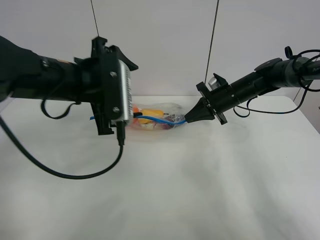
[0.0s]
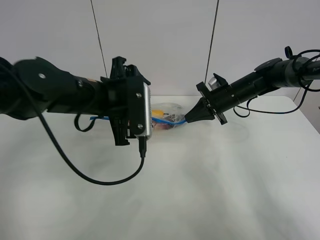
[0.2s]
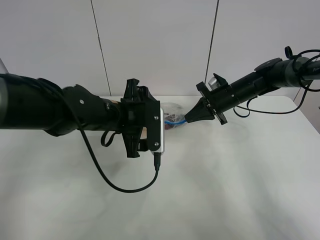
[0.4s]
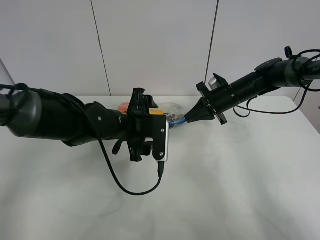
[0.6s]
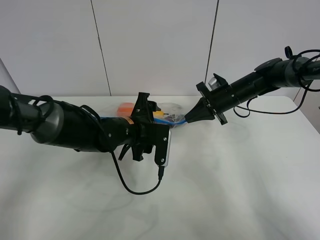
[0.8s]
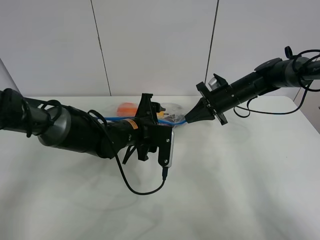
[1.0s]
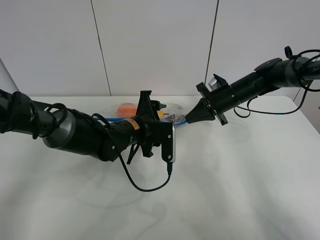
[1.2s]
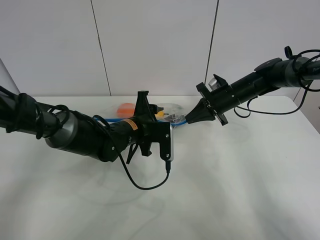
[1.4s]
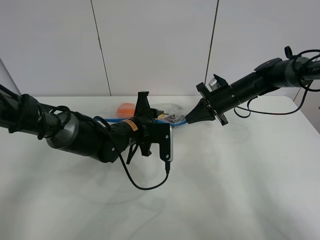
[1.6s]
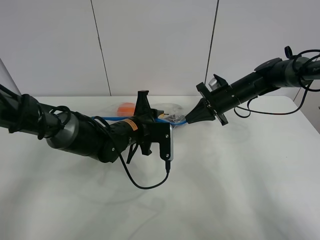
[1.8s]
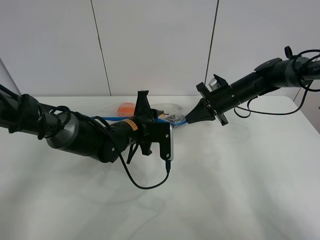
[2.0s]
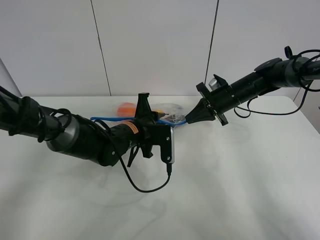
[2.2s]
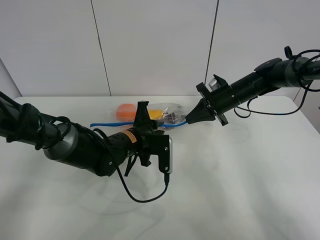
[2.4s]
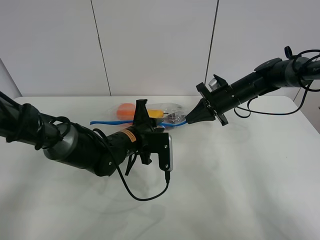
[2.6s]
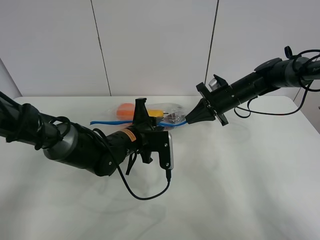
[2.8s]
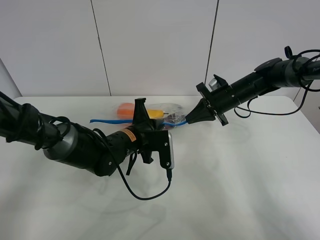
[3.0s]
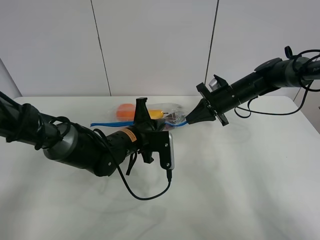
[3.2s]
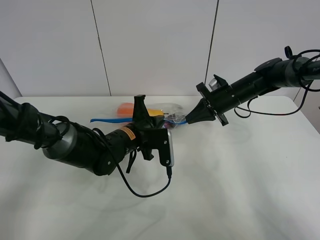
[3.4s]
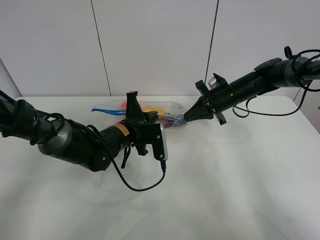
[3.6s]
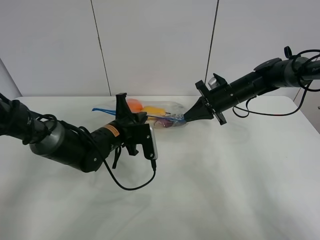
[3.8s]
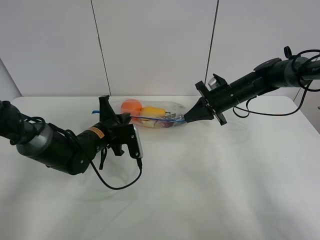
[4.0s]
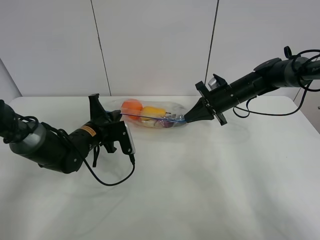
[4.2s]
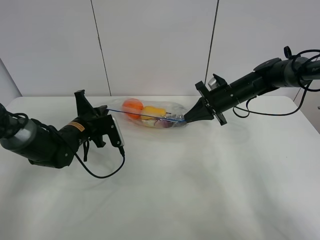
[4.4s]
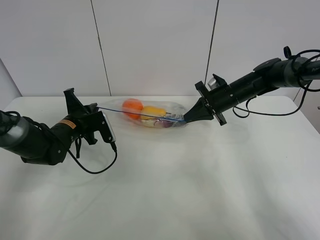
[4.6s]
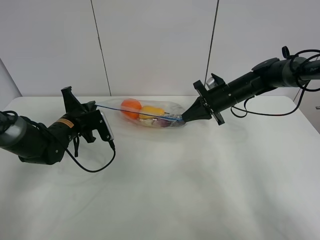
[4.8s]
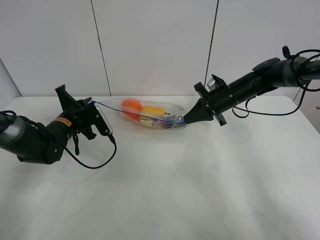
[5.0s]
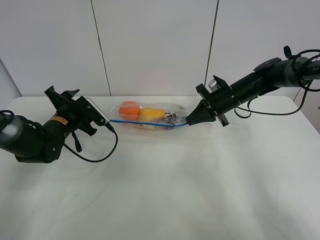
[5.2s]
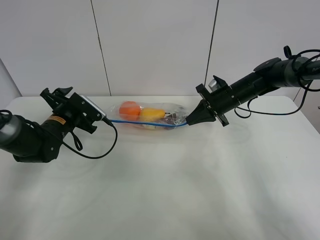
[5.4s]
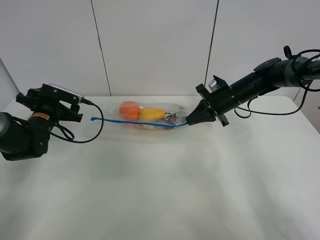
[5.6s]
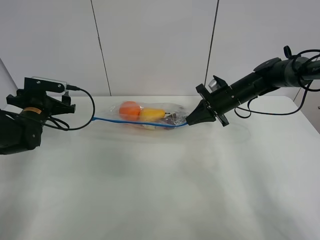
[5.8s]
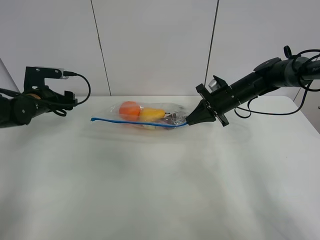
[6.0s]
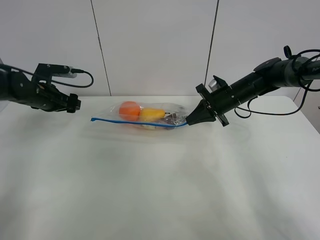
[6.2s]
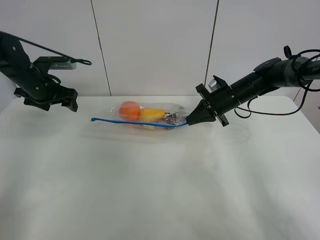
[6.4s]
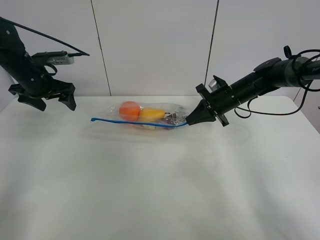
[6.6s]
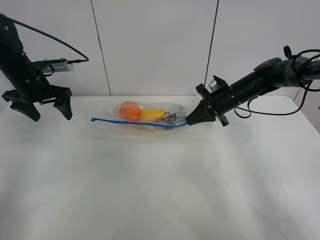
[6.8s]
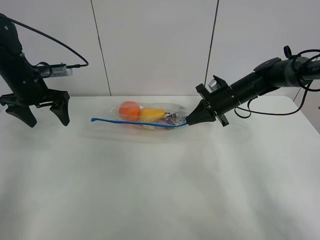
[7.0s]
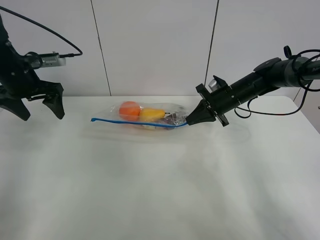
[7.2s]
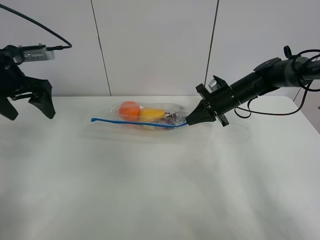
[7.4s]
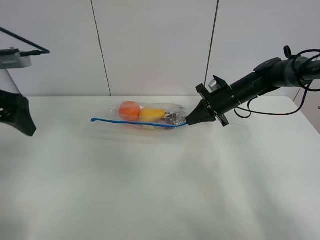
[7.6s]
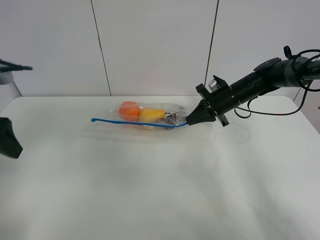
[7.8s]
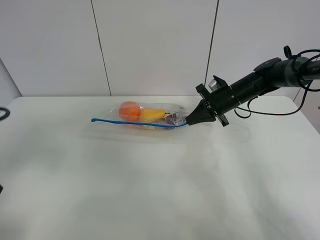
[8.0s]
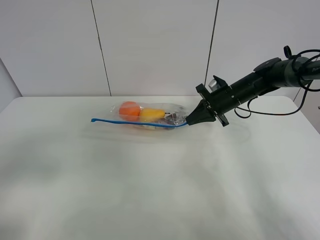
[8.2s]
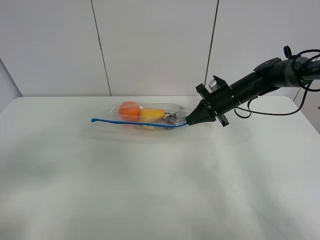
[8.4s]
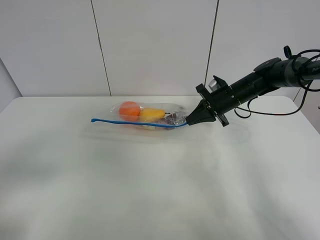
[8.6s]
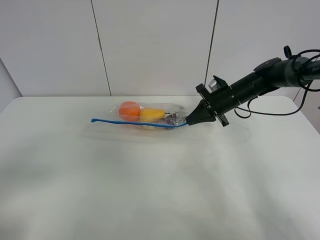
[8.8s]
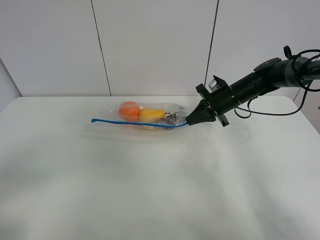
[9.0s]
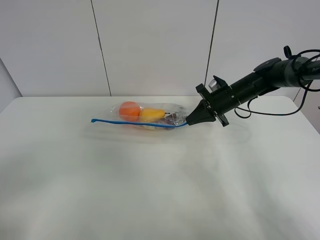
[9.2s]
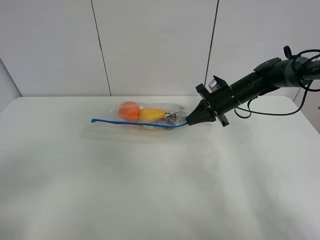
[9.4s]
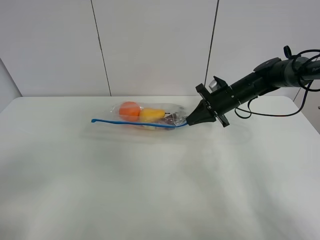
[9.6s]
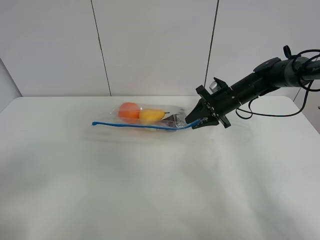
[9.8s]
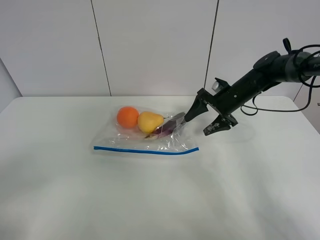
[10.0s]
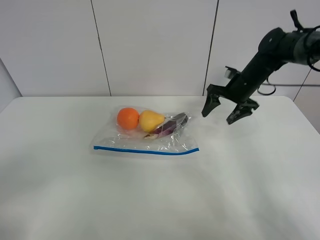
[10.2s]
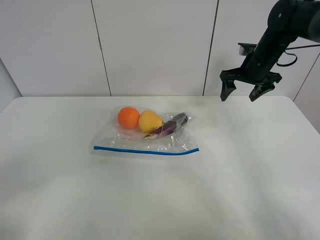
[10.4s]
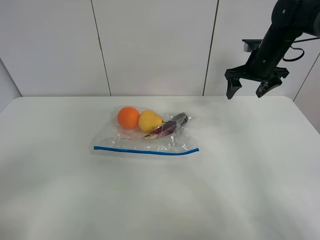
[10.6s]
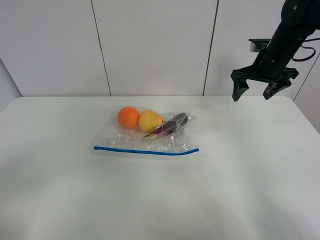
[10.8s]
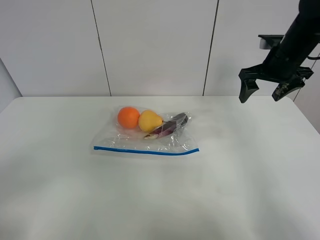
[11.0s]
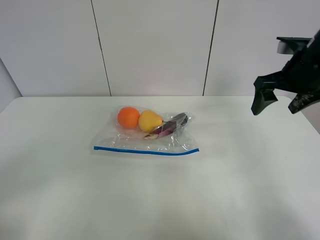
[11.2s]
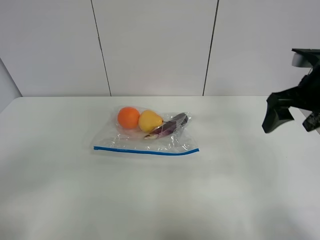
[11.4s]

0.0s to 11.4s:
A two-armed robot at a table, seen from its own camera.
Step, 0.0s to 5.2s: Pull the fruit bag with left gripper.
0.0s to 1.4s: The left gripper heads downward, covering approximately 15 cm, and closes up.
1.4s to 2.8s: The grippers move only a little.
2.8s to 4.2s: The left gripper is displaced to the left by some 10 cm.
4.2s to 5.6s: The left gripper travels to the left by approximately 15 cm, and opens.
5.6s to 7.2s: The left gripper shifts roughly 15 cm upward.
7.2s to 8.6s: The left gripper heads backward, covering roughly 30 cm.
8.6s to 10.0s: The left gripper is displaced backward by roughly 5 cm. Meanwhile the right gripper opens its fingers.
10.0s to 11.4s: The right gripper is displaced backward and upward by some 20 cm.

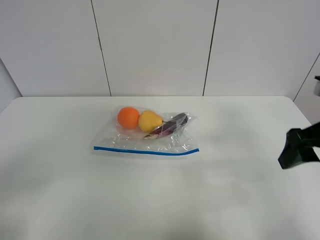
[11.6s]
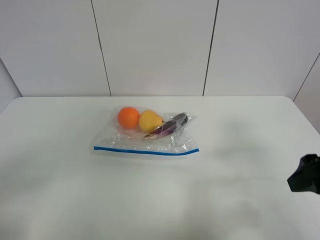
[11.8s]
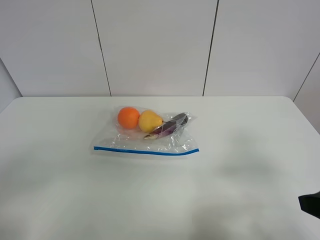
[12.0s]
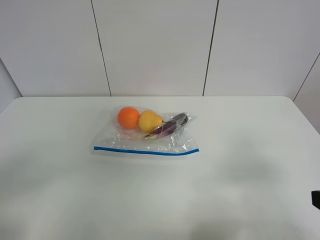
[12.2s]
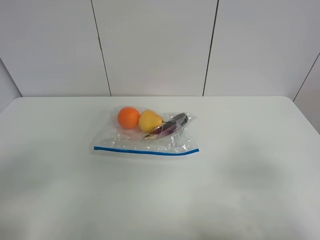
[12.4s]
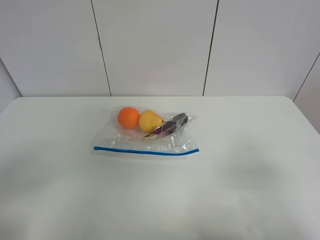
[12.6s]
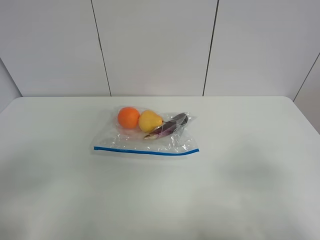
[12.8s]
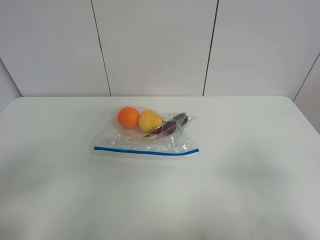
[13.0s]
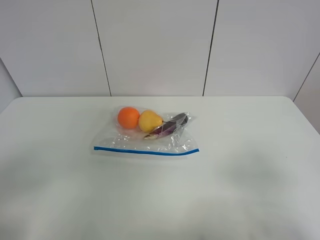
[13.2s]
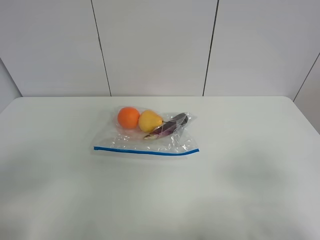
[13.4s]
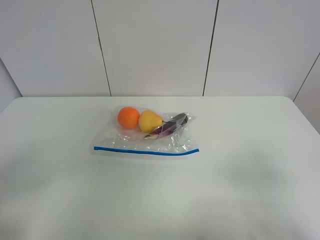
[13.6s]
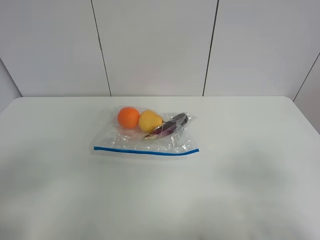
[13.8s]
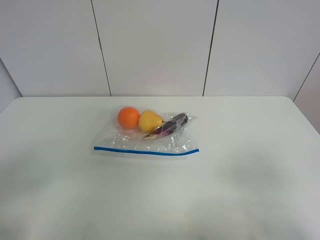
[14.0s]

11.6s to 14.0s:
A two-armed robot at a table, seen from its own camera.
11.6s to 12.8s: The right gripper is displaced backward by approximately 15 cm.

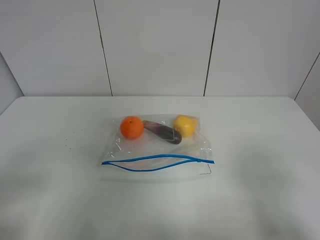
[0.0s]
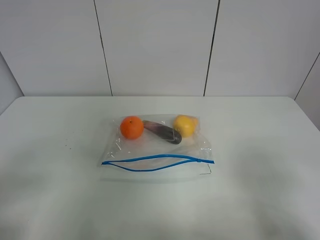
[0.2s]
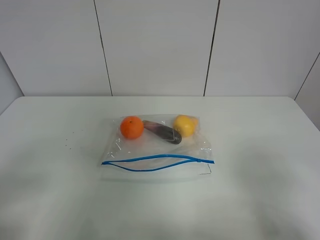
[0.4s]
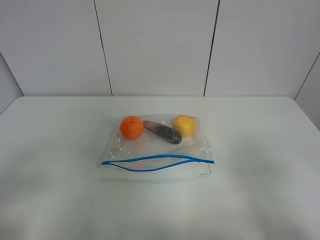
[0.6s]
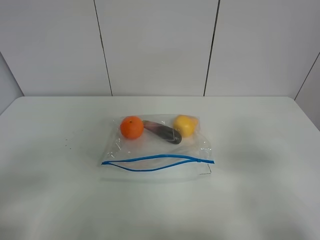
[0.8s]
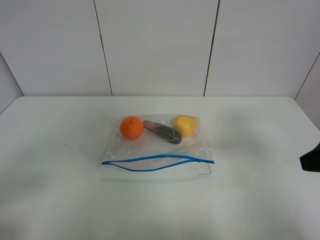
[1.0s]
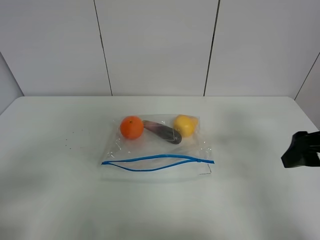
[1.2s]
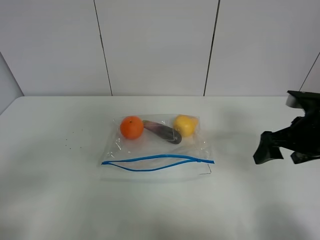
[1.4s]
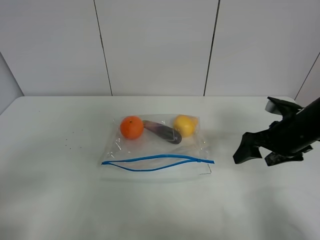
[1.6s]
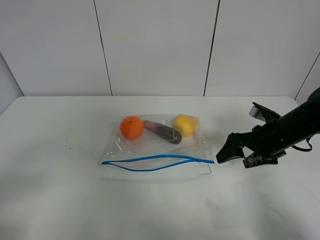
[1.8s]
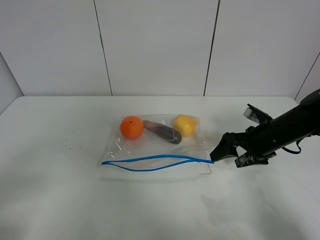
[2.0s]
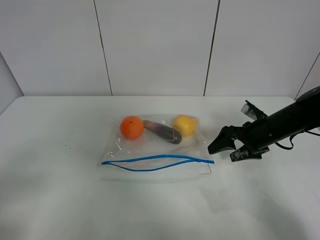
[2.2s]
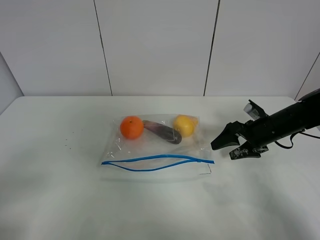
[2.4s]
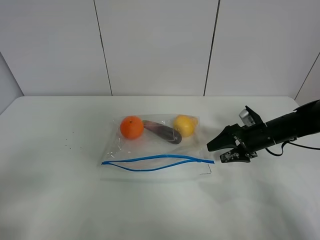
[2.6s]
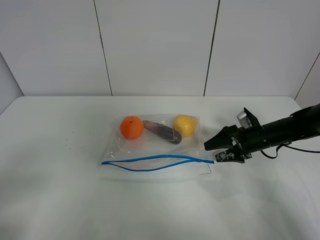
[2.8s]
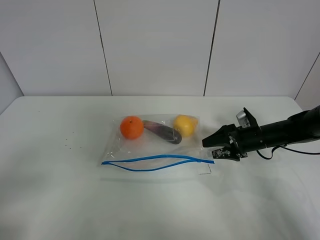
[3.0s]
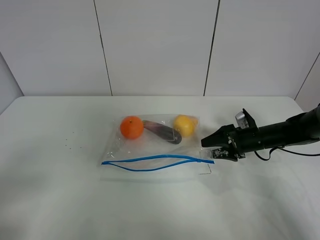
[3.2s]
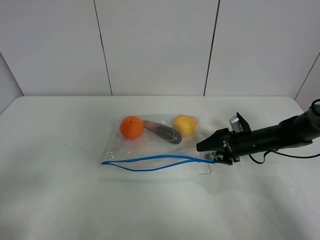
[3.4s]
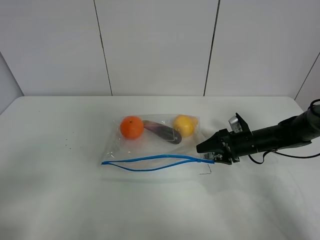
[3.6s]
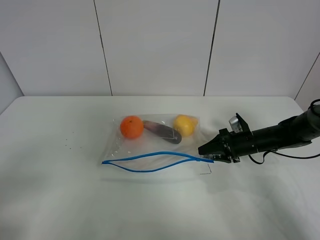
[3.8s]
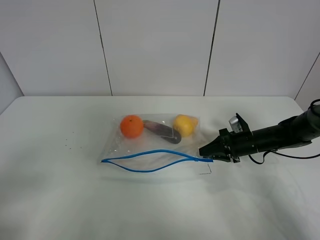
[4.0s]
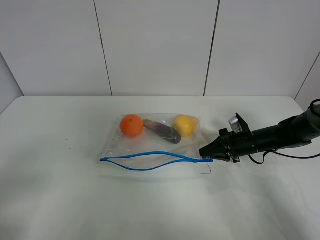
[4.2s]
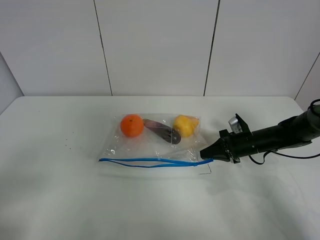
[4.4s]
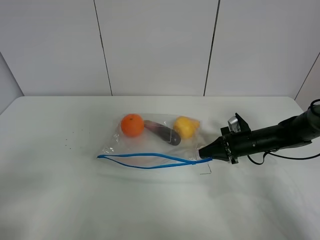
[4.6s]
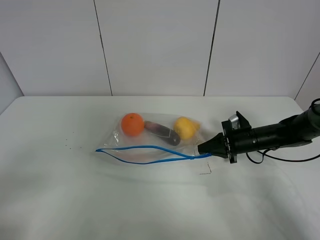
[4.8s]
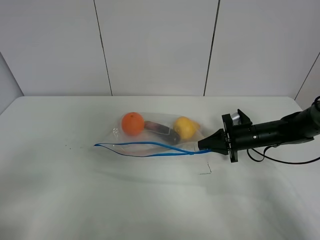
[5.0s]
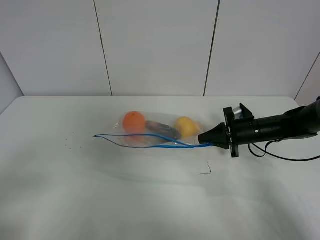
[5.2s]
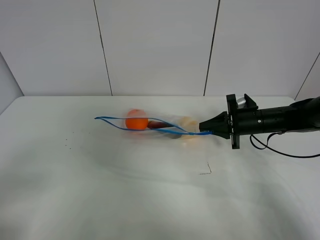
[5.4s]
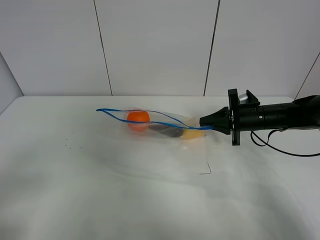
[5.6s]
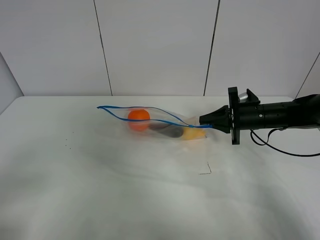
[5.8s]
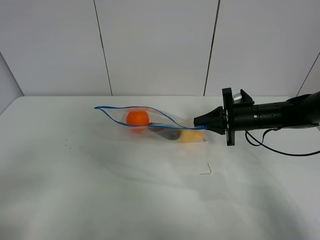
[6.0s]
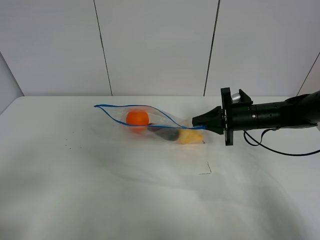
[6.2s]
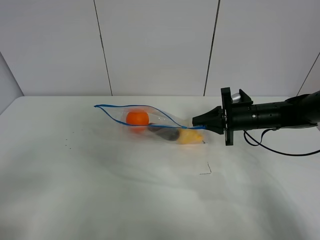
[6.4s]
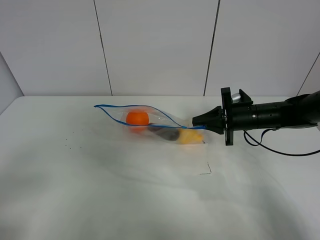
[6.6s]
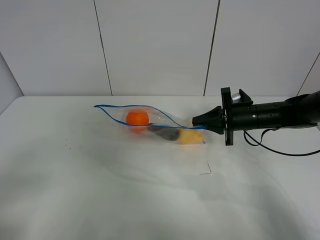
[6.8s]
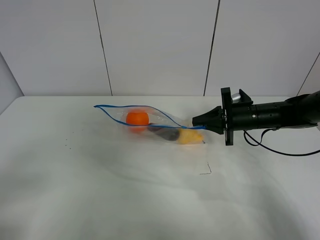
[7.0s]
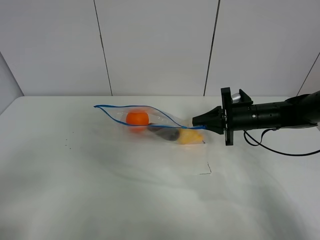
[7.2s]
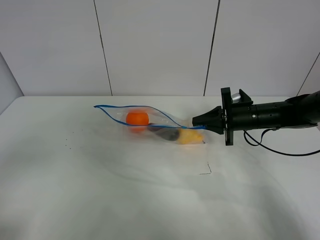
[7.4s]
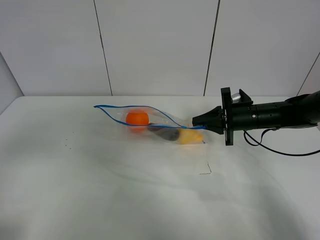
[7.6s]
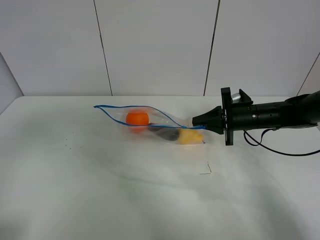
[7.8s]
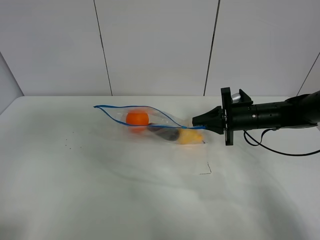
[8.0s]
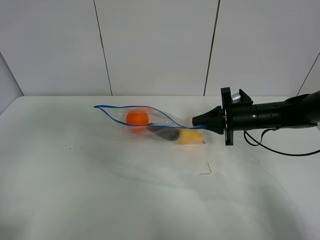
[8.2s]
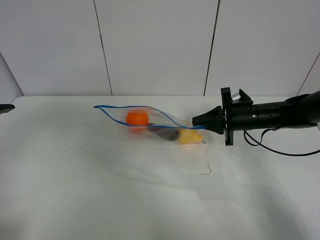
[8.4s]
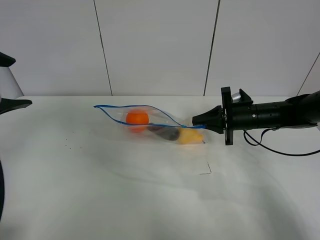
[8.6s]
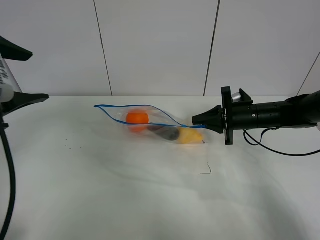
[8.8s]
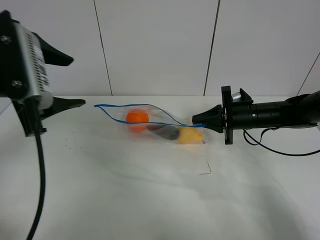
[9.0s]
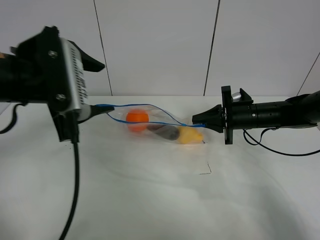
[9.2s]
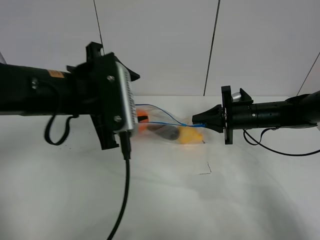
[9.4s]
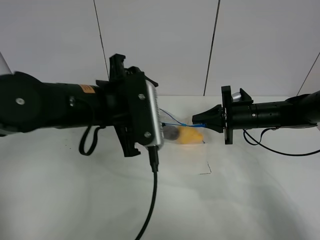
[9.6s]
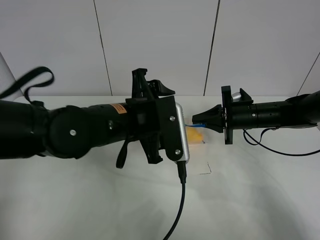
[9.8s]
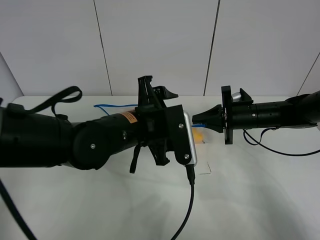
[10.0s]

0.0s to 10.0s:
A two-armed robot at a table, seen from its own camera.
Step, 0.0s to 4.4s: Grasp the fruit bag with right gripper.
Step, 4.6s to 7.6s: Lift the fruit bag with your right gripper.
0.0s to 1.4s: The right gripper moves forward, approximately 25 cm.
1.4s to 2.8s: The right gripper travels downward and forward by about 15 cm.
2.8s to 4.2s: The right gripper closes.
4.2s to 5.8s: The right gripper heads upward, covering roughly 10 cm.
5.8s to 7.2s: The grippers stay close to where they were, moving slightly.
7.2s to 8.6s: The left gripper goes approximately 20 cm forward.
8.6s to 10.0s: The left gripper travels to the right and downward by roughly 25 cm.
